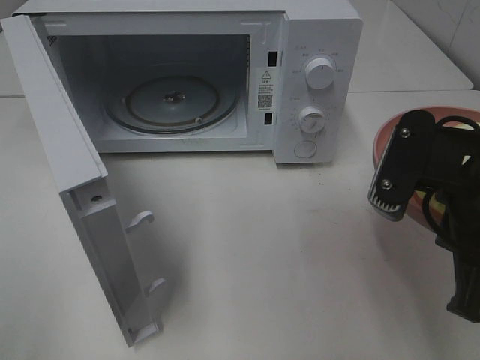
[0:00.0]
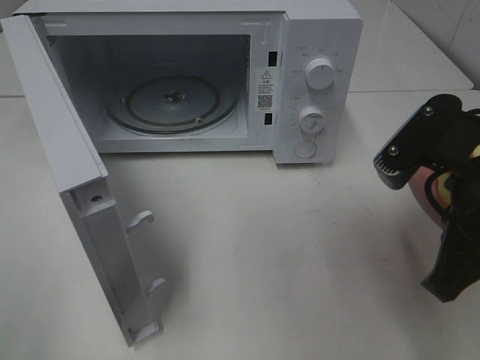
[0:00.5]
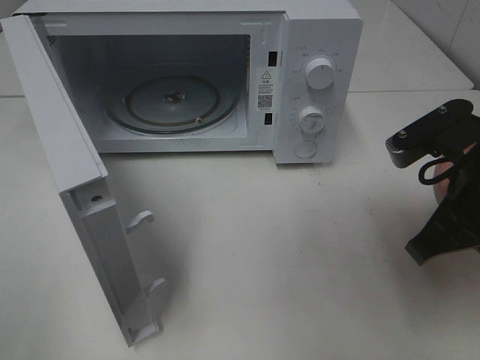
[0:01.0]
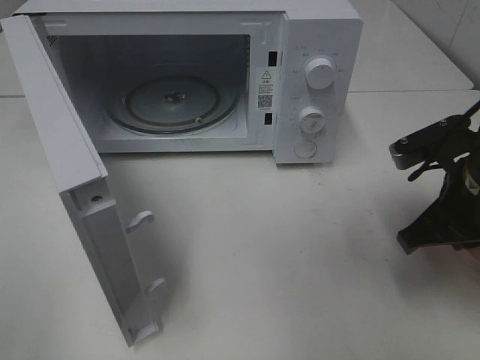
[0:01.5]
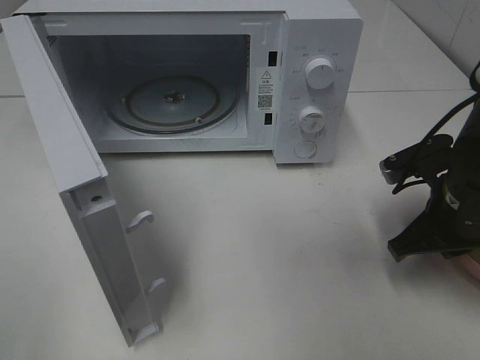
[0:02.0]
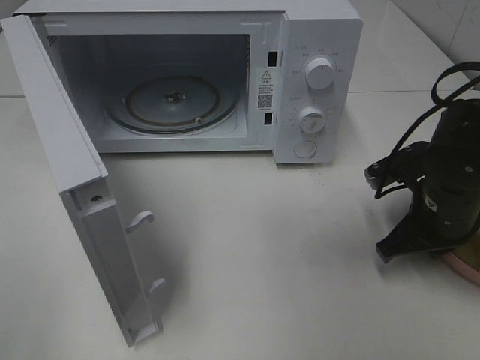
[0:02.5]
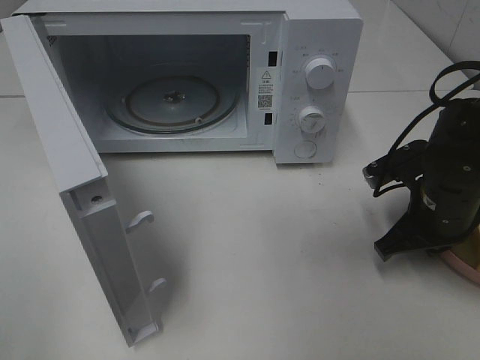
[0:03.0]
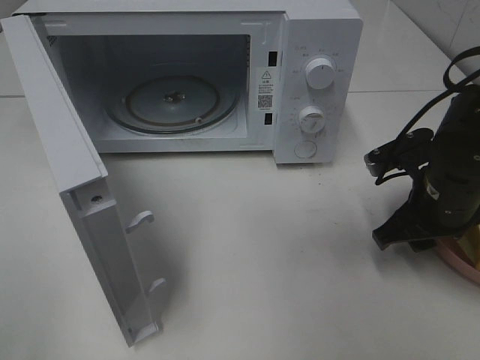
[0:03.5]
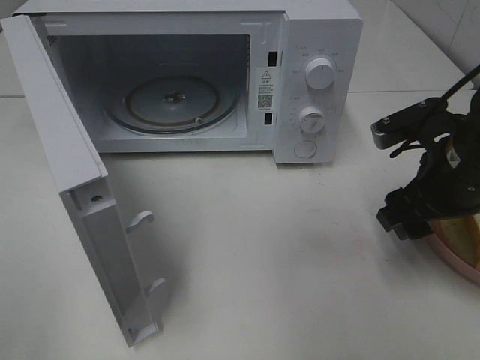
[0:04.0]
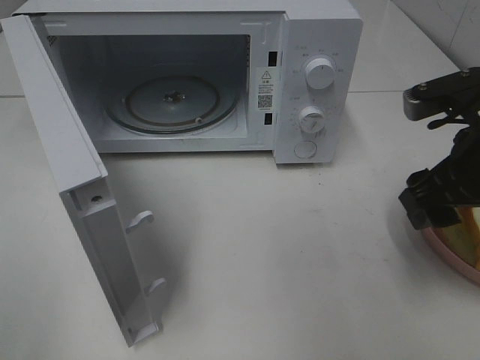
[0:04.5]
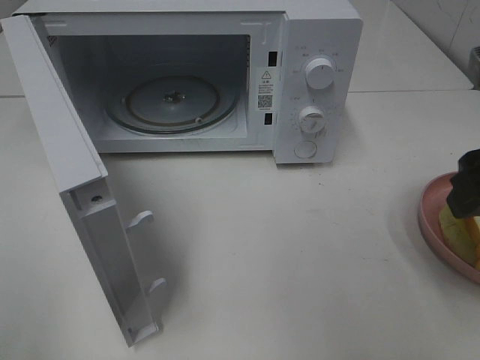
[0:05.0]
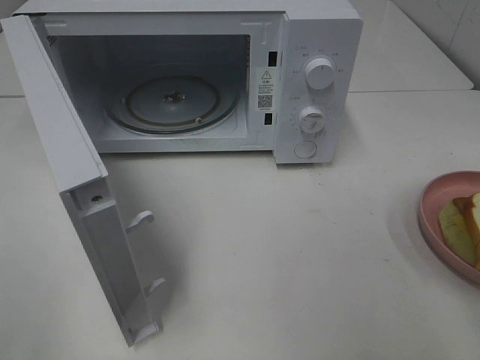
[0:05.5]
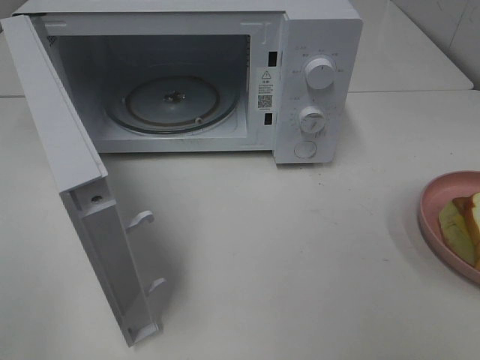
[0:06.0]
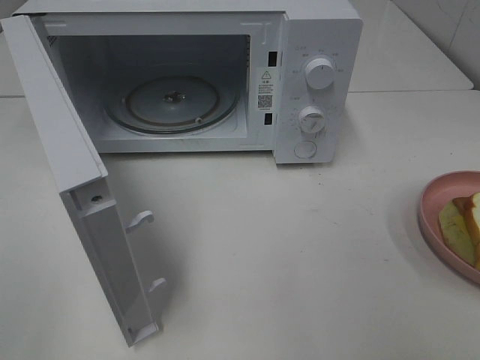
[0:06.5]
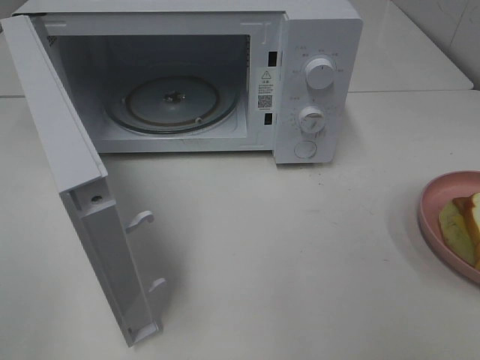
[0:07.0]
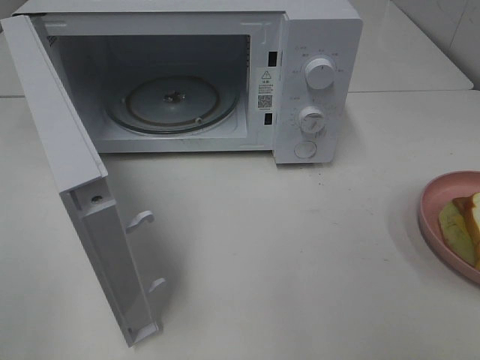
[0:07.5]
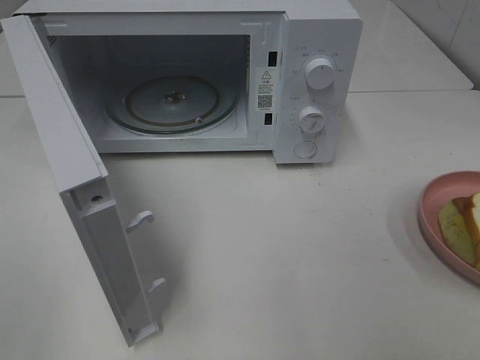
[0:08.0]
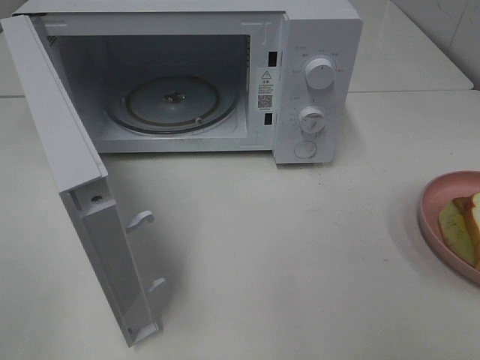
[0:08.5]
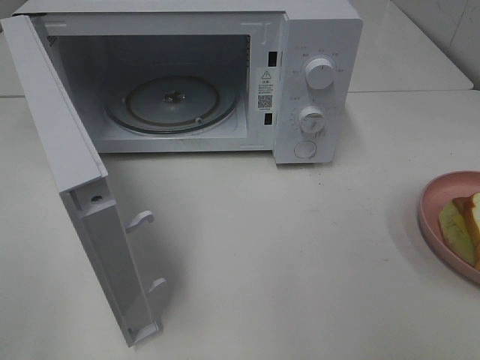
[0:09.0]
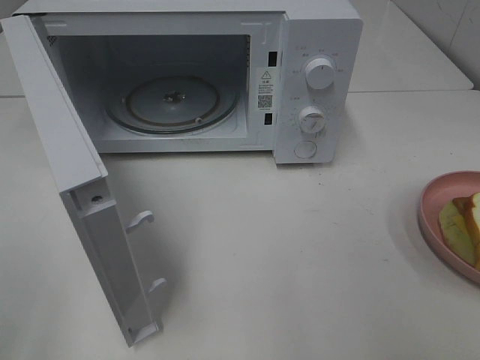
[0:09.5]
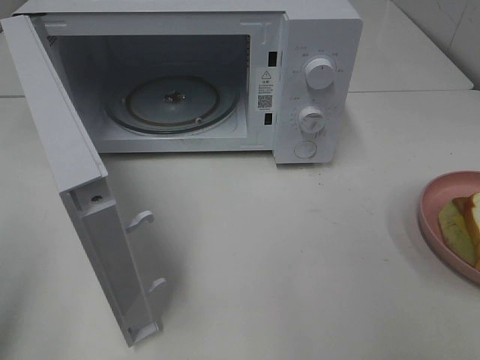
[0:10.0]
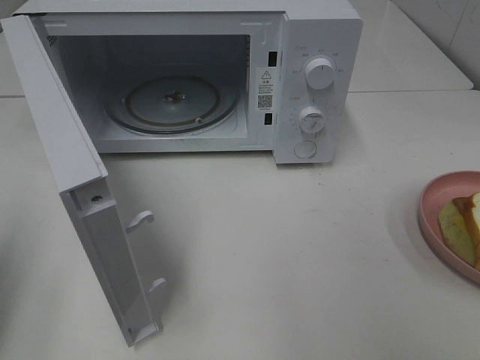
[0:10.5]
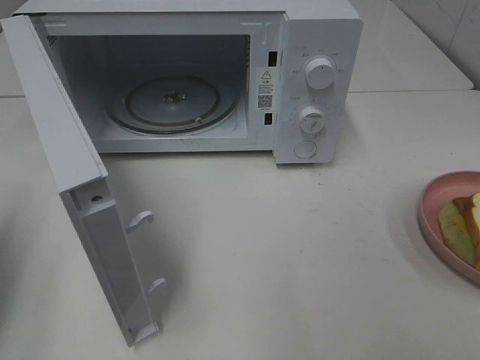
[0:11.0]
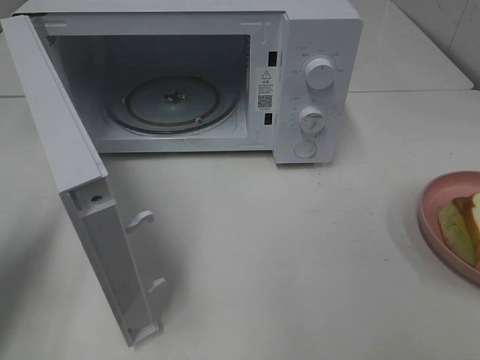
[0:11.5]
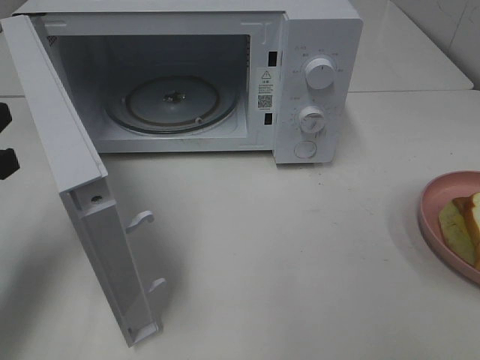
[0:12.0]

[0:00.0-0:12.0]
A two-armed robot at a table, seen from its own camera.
Task of the whole recording: Heat Sandwich.
Step, 0:00.0 to 0:04.5: Right hand: place the plate on the table.
0:00.0 to 0:02.0: The right gripper is displaced downward and forward by roughly 15 cm.
0:02.0 to 0:04.0: The right gripper opens up.
0:04.0 to 0:06.0: The right gripper goes approximately 25 cm backward and upward.
0:10.0 to 0:12.0: The left gripper is displaced forward and downward by approximately 15 cm.

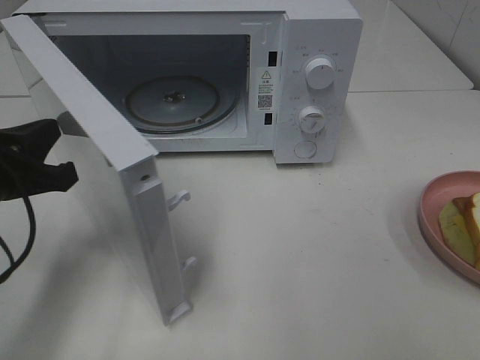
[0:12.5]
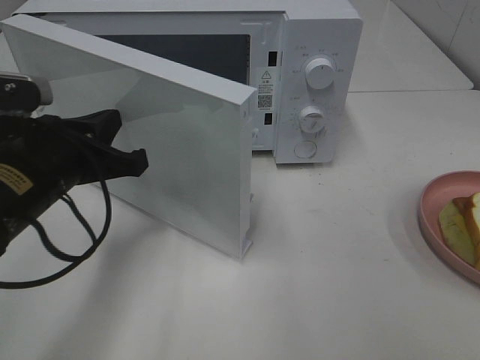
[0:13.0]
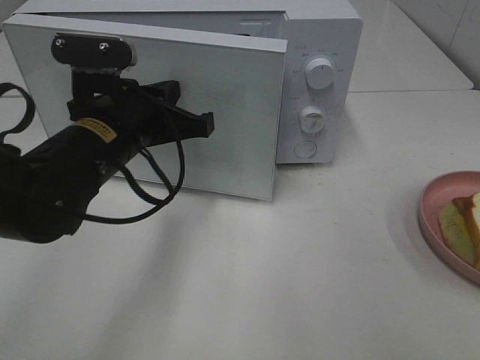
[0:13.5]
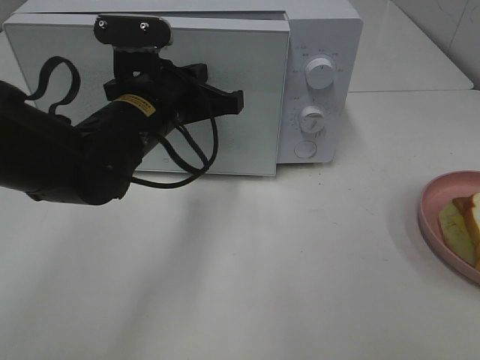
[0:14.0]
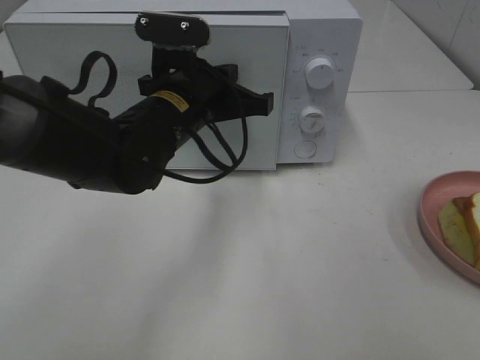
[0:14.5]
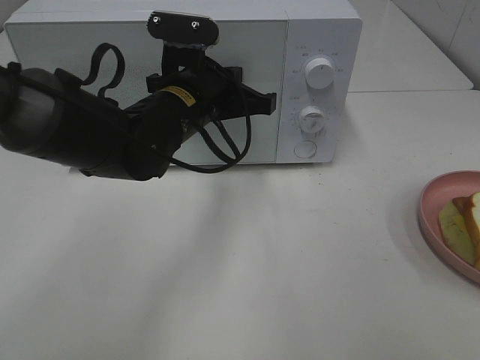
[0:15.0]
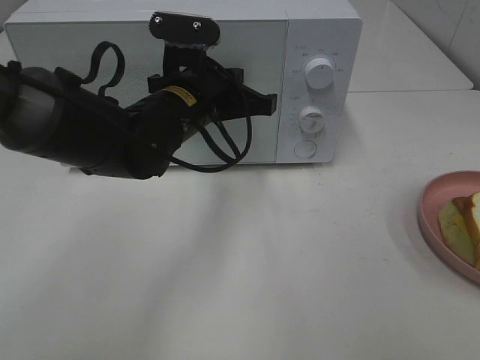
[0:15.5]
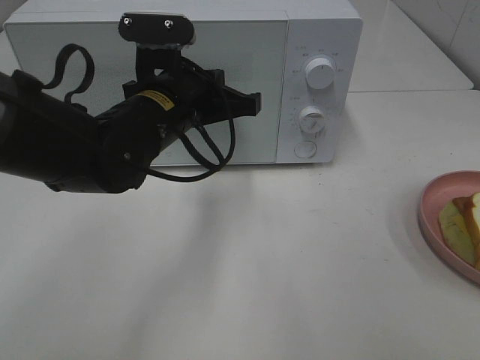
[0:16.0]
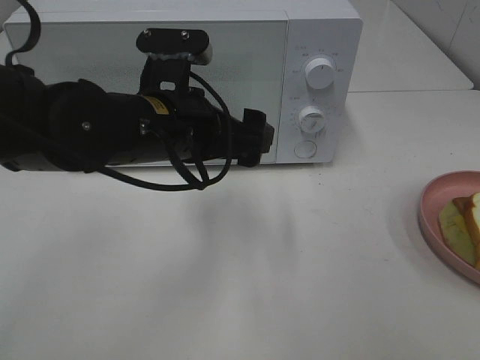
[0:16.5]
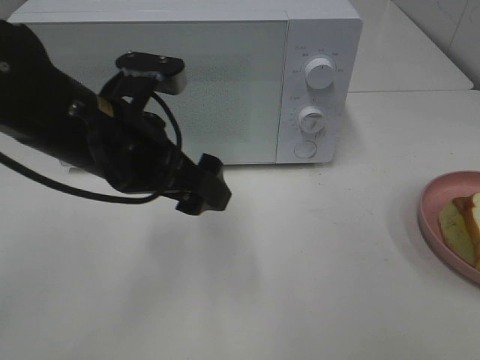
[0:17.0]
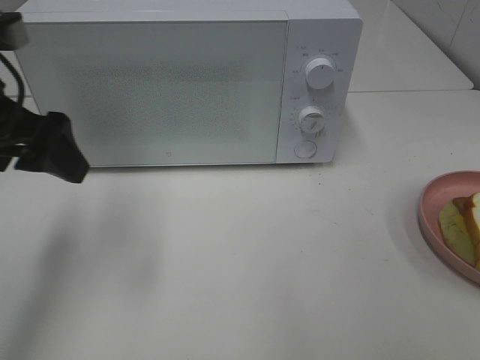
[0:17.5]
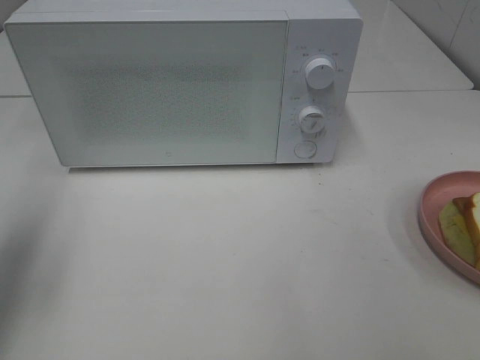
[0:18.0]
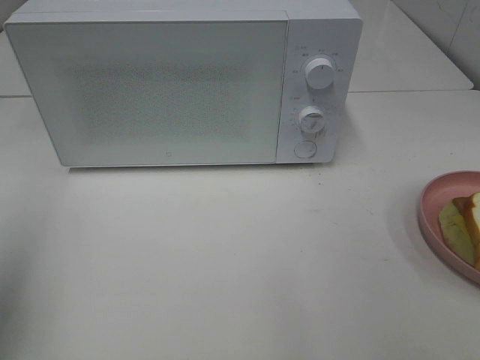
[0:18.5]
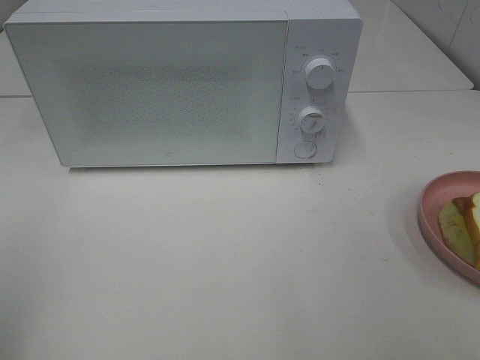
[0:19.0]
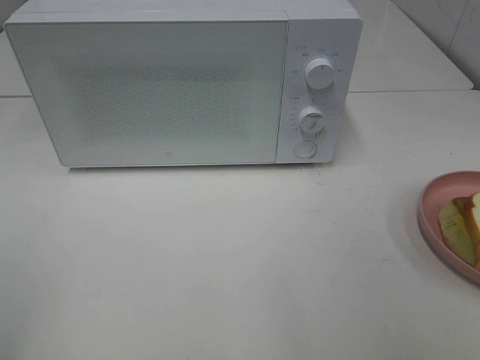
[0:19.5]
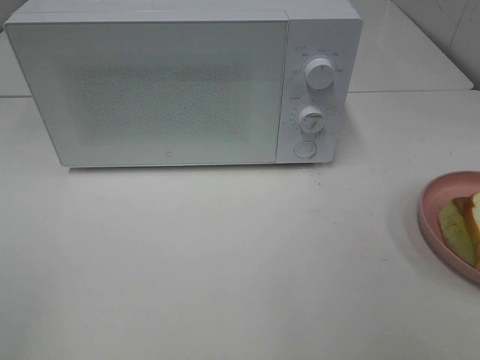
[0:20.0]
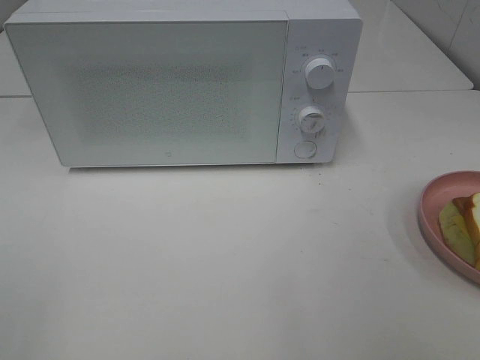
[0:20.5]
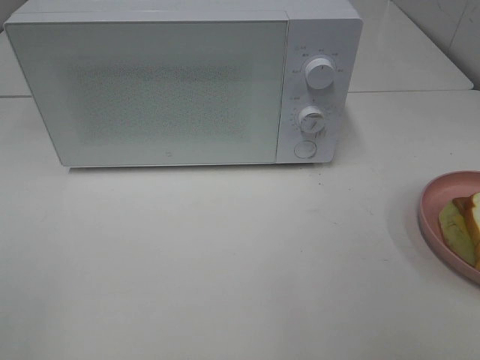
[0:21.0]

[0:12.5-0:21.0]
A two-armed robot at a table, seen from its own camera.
Task of the whole recording: Heat Sandwich.
Step, 0:12.5 to 0:15.0: Left hand: close the microwave door.
0:12.5 to 0:14.5: The left gripper goes roughly 20 cm to the right and forward.
0:14.5 to 0:16.5: The left gripper shifts roughly 5 cm backward, and opens.
0:16.5 to 0:19.0: The left gripper shifts some 35 cm to the left, backward and upward.
